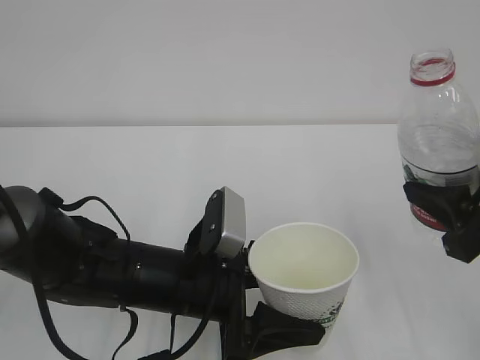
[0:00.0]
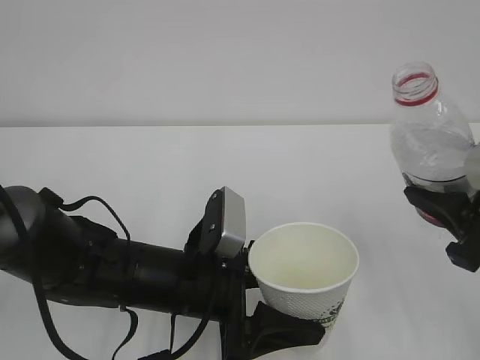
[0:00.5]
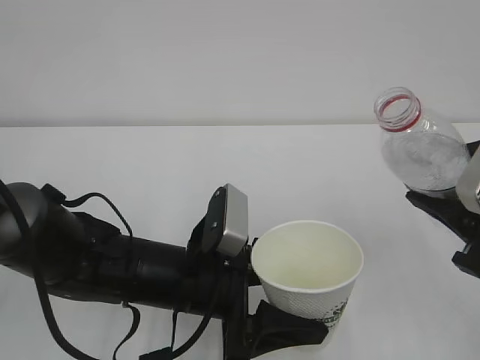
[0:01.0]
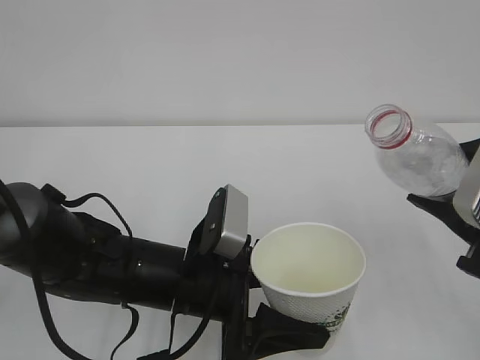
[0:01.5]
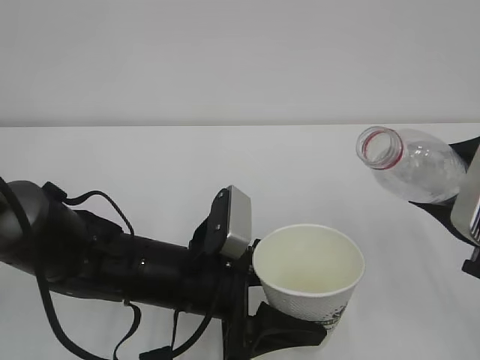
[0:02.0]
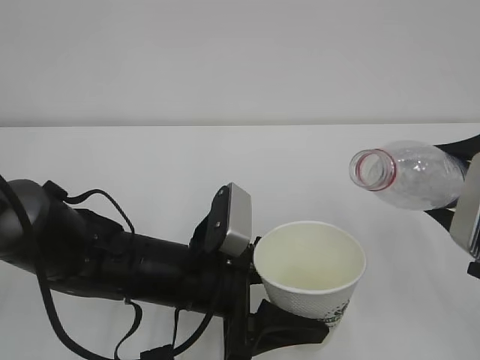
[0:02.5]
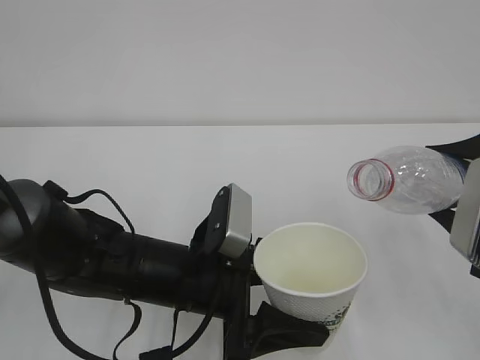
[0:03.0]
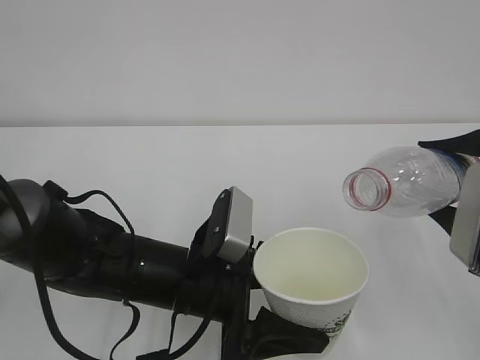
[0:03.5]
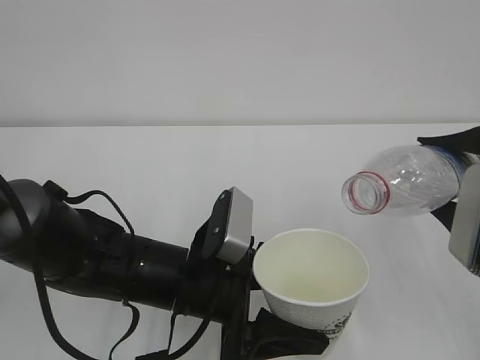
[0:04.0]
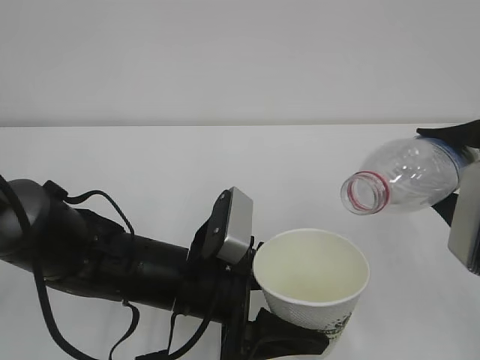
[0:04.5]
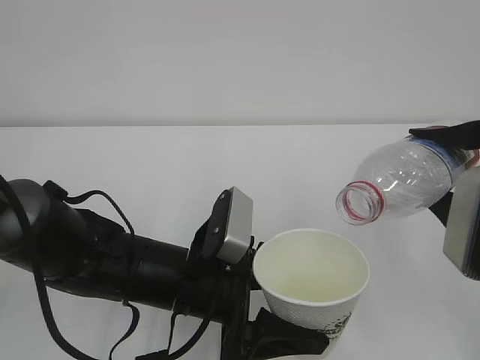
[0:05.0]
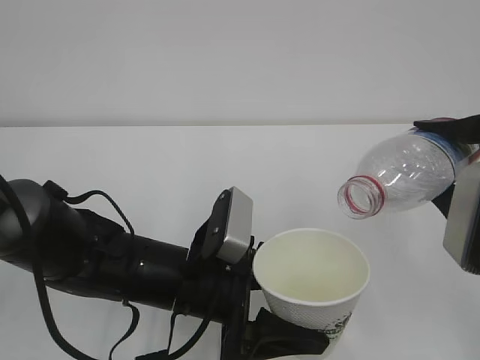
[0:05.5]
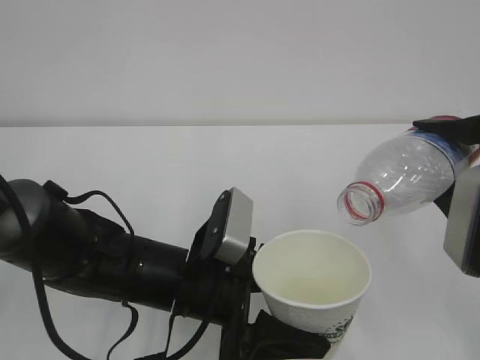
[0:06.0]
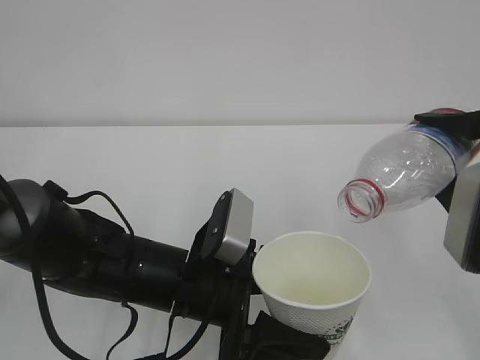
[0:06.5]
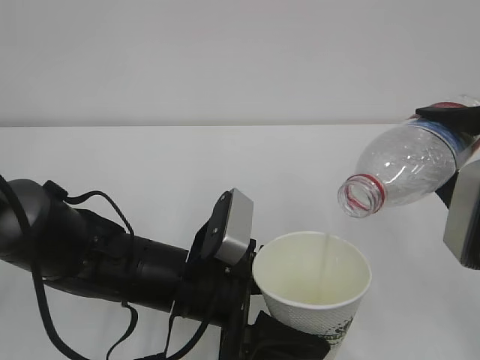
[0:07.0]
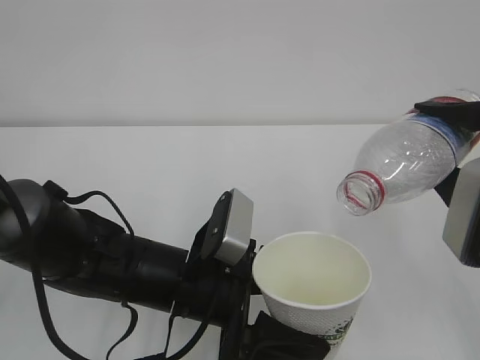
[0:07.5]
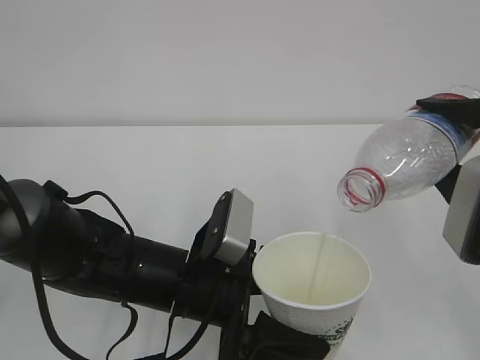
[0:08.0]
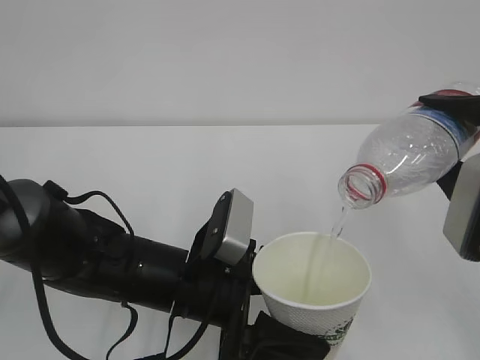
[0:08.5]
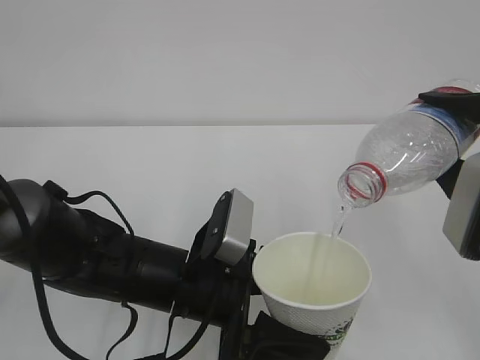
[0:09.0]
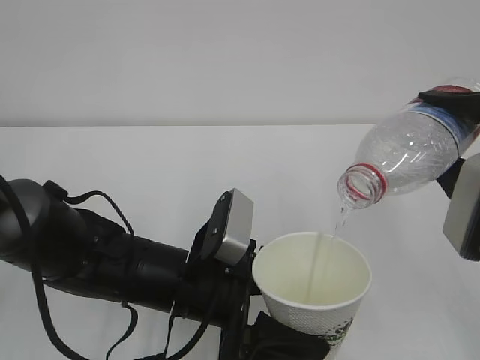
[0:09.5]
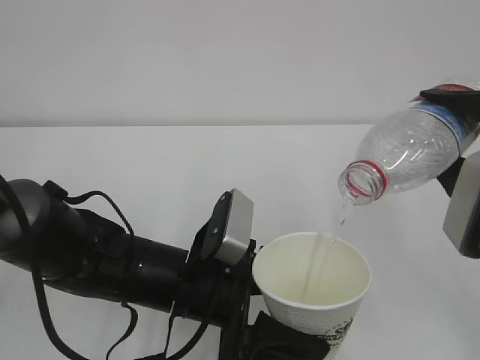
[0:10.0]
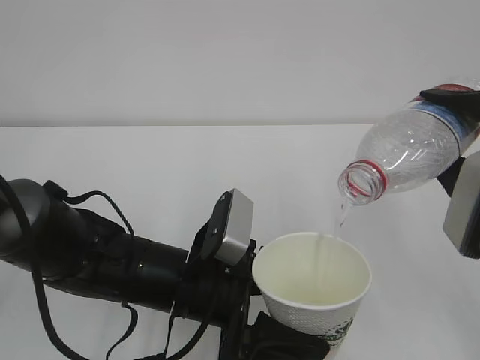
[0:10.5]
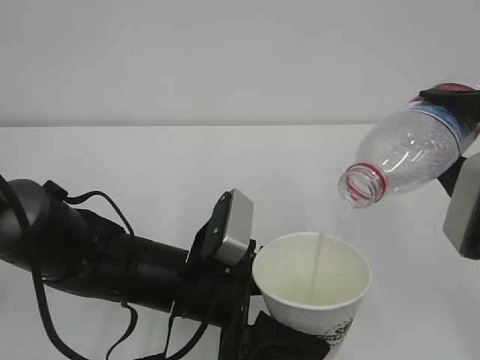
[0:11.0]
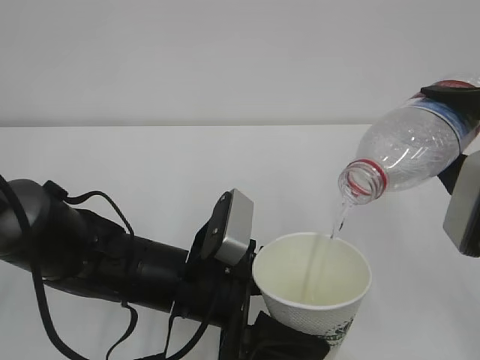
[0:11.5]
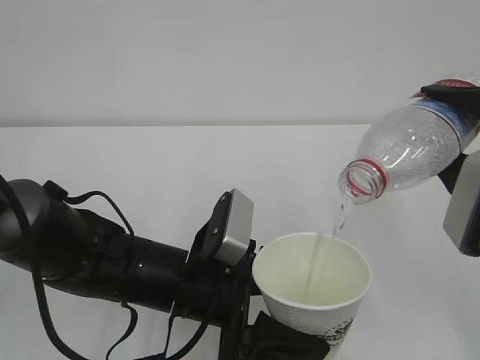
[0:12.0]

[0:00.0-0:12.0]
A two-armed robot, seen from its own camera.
0:02.0 to 0:04.0: The grippers move only a little.
0:04.0 to 0:08.0: The grippers stay close to where they were, moving slightly.
0:08.0 to 0:12.0: Both grippers stay about where they are.

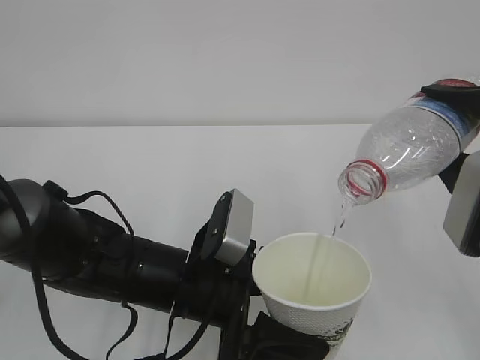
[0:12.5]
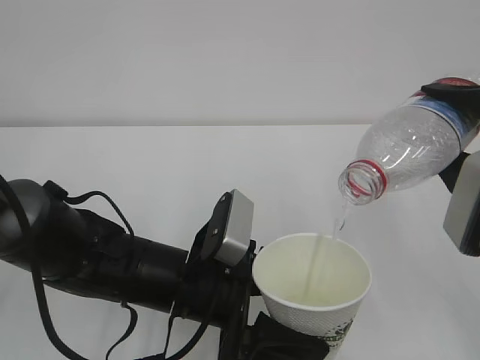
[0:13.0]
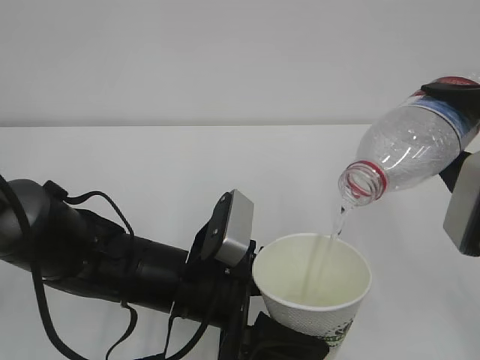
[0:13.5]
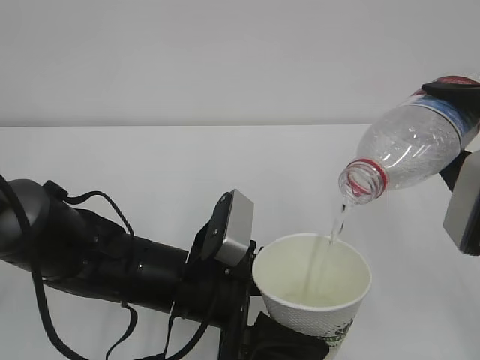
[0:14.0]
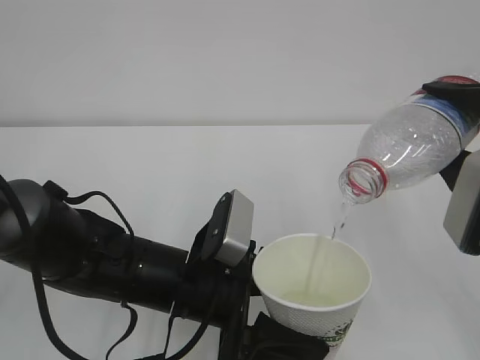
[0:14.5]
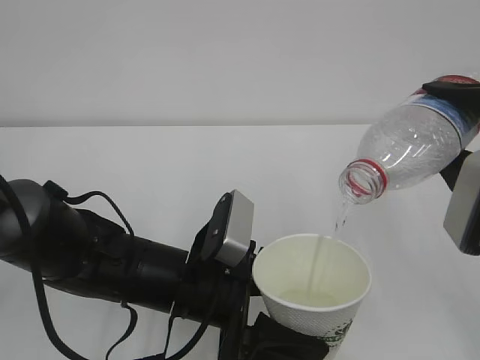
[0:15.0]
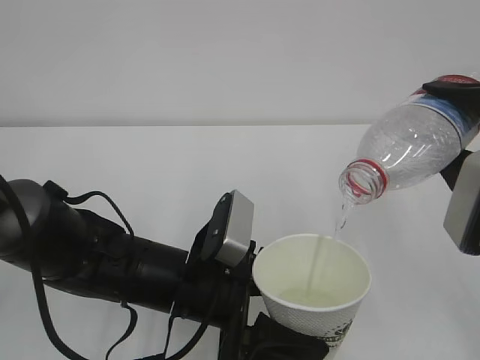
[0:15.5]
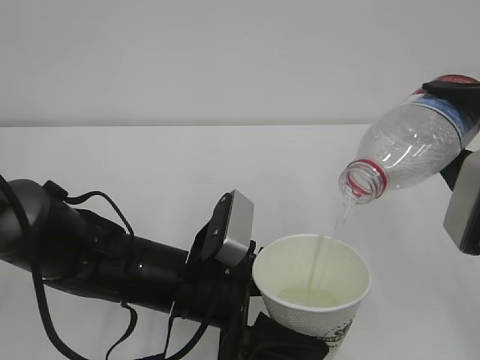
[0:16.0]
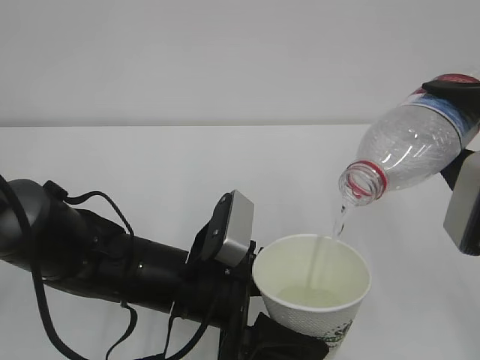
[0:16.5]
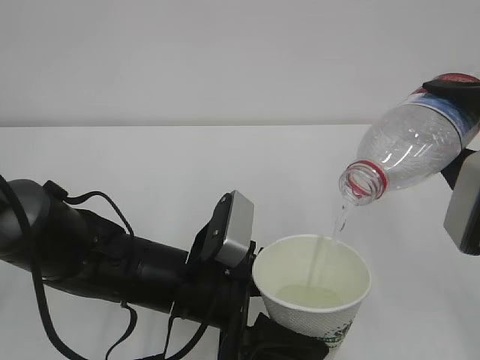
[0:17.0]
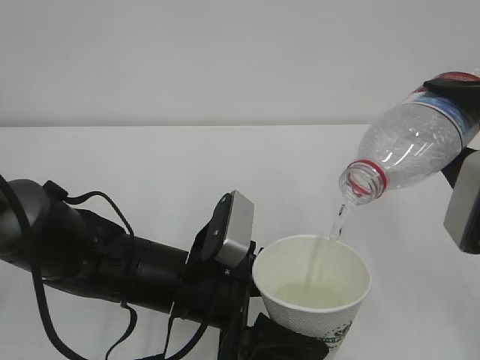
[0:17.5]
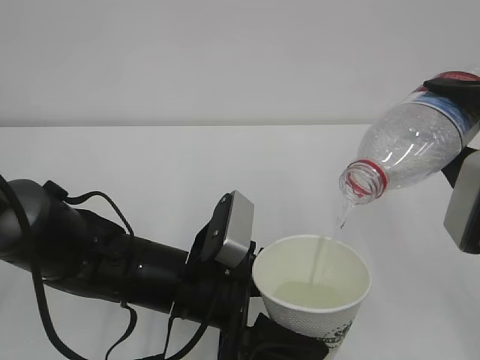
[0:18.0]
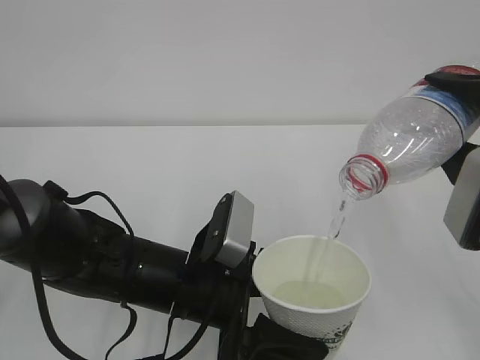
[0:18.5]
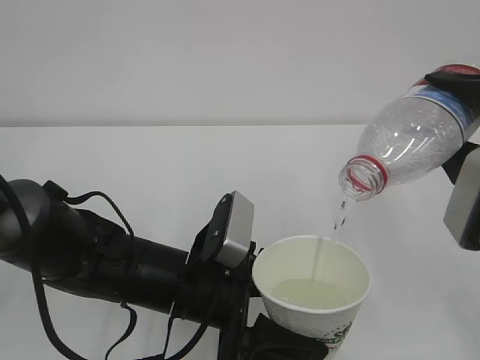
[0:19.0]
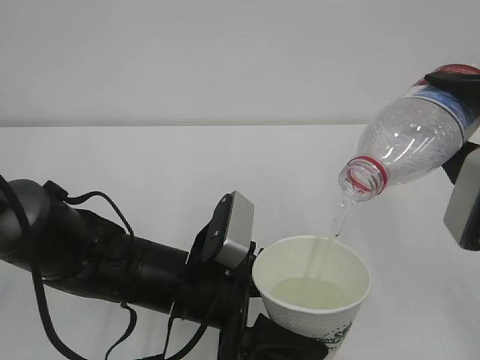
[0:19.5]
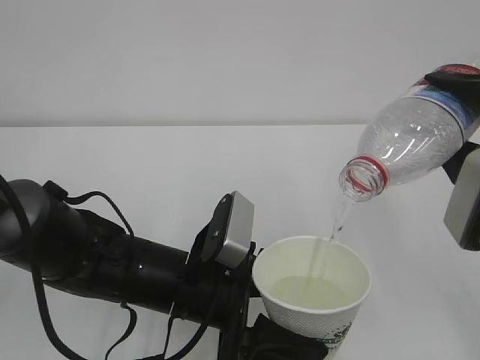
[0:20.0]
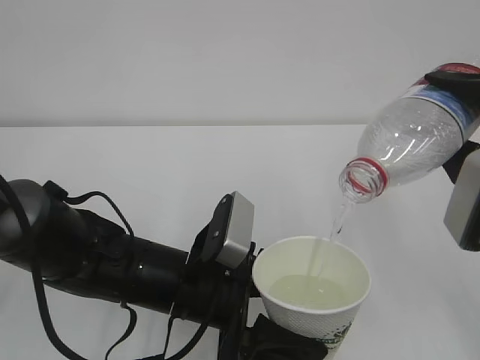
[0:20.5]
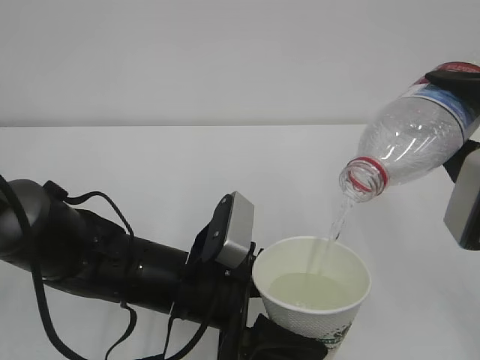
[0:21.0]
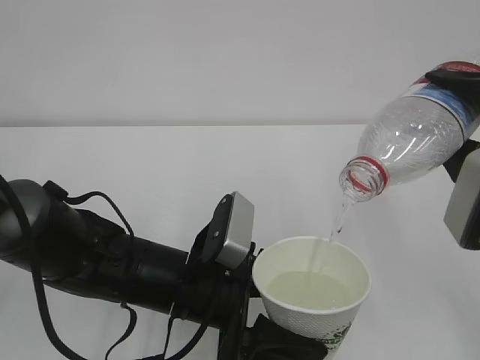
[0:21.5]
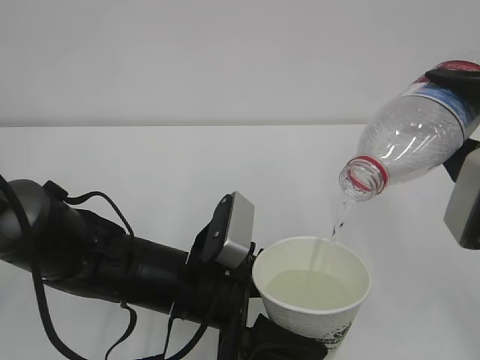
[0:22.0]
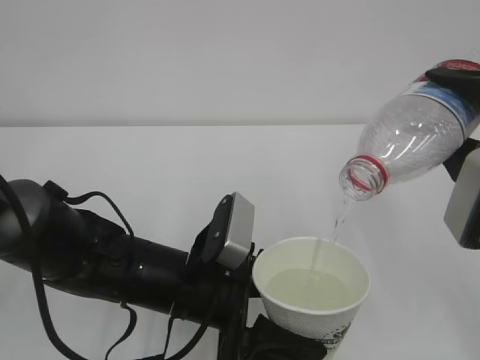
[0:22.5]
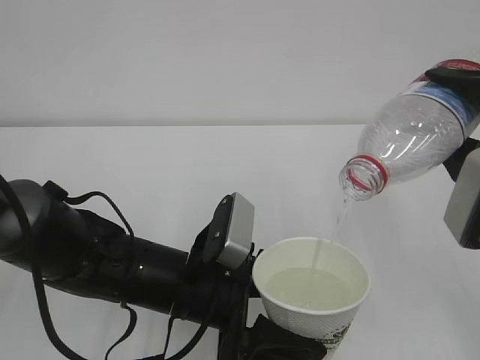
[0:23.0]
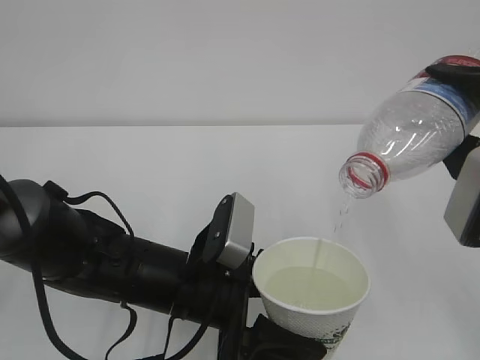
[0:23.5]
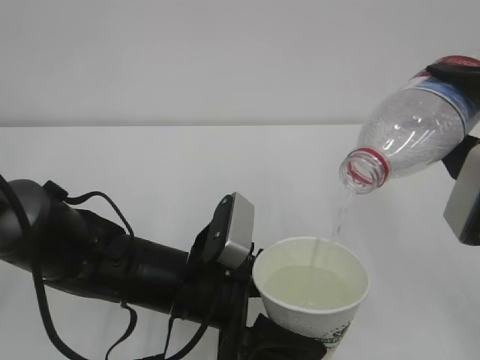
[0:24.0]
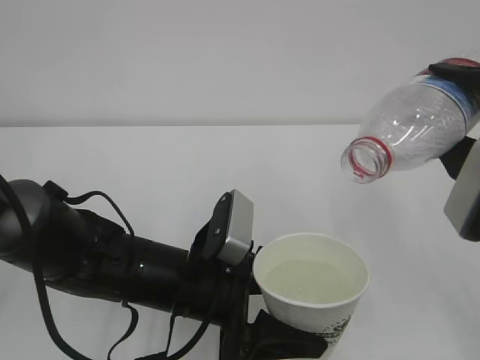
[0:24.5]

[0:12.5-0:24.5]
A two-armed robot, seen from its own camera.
0:12.5 to 0:18.5: Both grippers stay put.
0:18.5 to 0:22.5: Both grippers stay about where they are.
0:22.5 to 0:24.5: The grippers stay close to where they were, moving slightly.

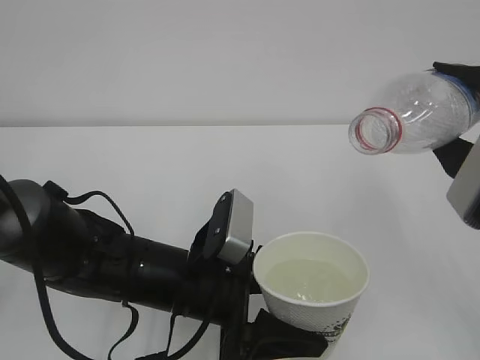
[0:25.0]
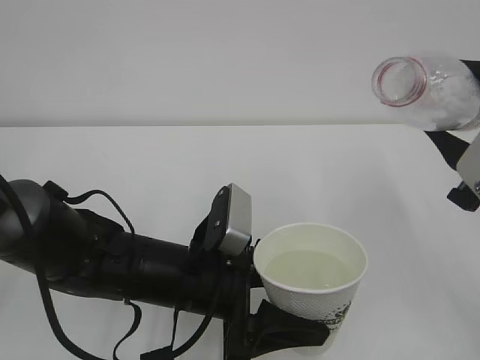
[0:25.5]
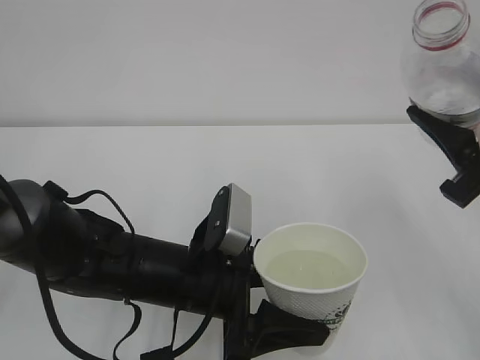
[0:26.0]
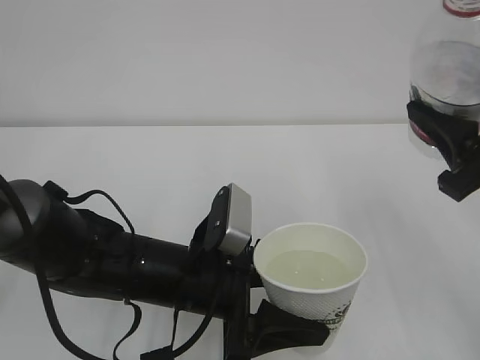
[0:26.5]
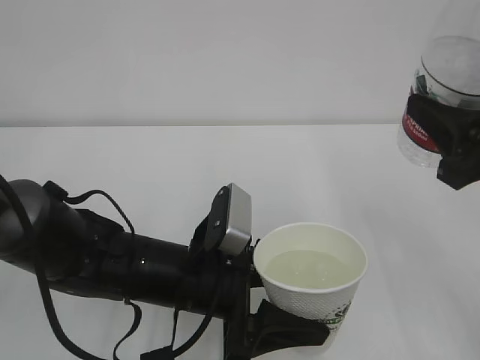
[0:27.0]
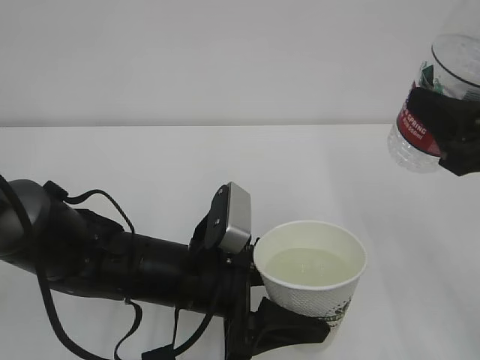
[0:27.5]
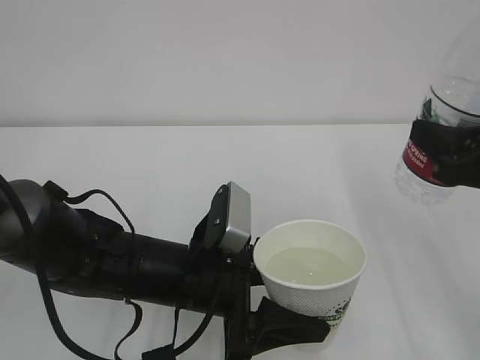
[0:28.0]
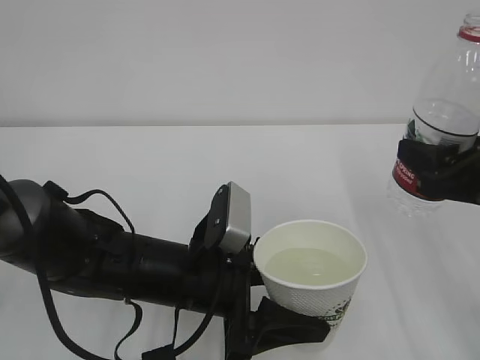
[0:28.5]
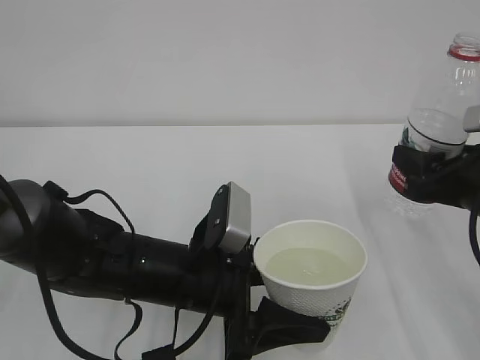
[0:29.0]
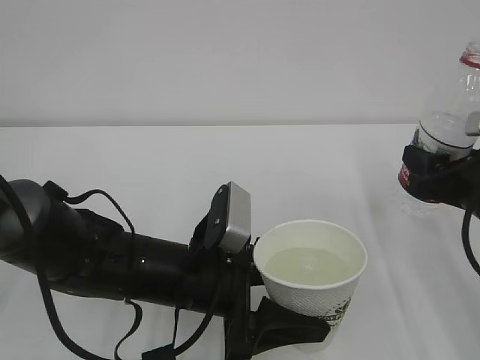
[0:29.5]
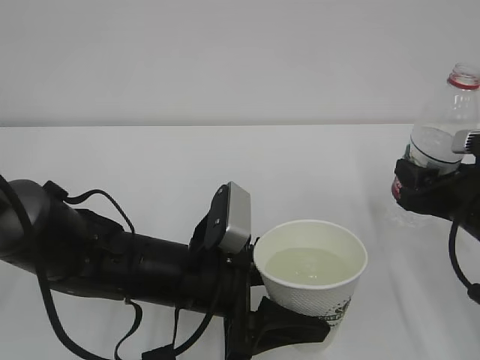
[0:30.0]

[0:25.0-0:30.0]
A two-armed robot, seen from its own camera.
0:27.5 to 0:30.0: The right gripper moves downward and forward, some 15 cm.
